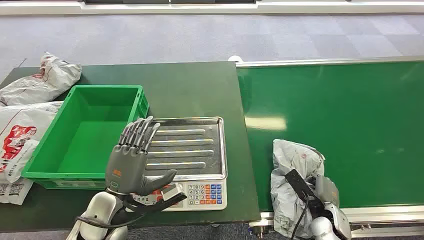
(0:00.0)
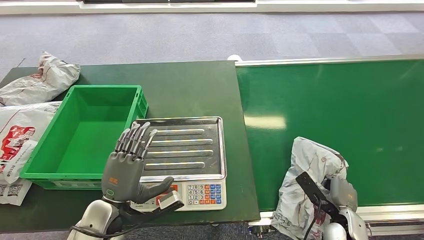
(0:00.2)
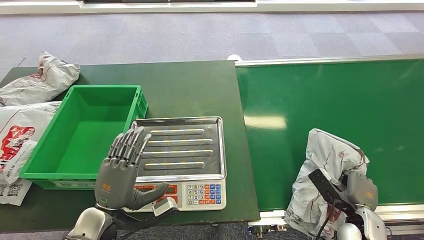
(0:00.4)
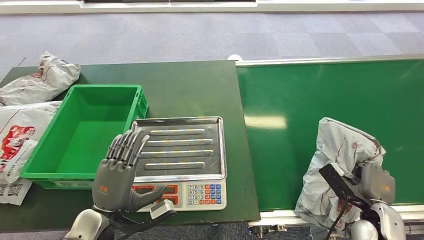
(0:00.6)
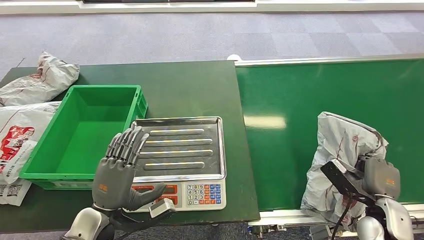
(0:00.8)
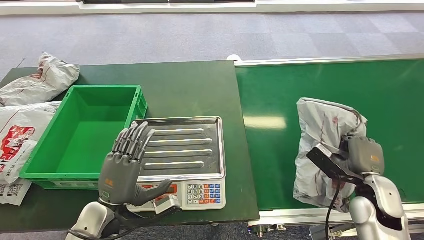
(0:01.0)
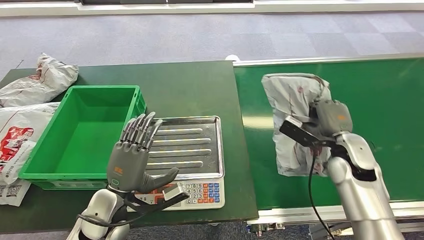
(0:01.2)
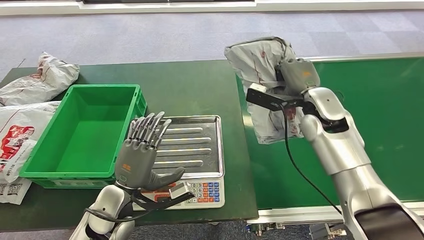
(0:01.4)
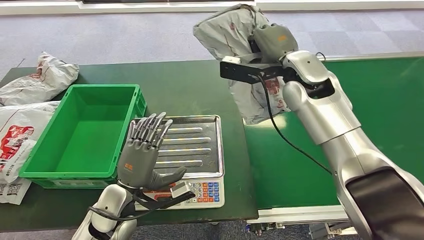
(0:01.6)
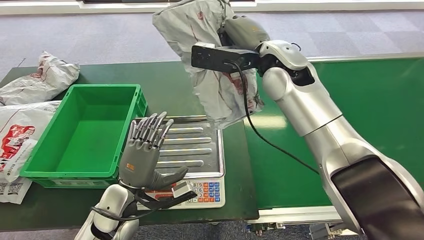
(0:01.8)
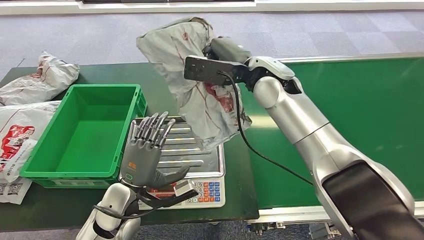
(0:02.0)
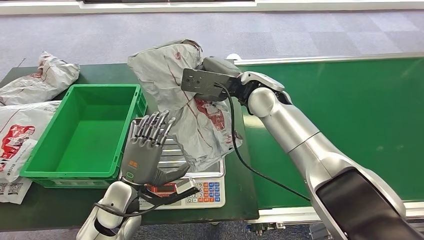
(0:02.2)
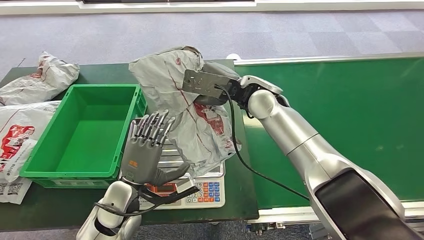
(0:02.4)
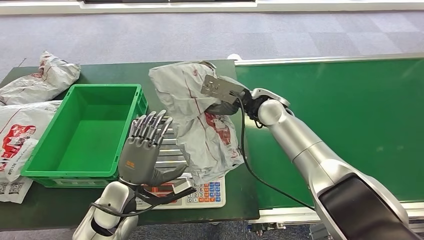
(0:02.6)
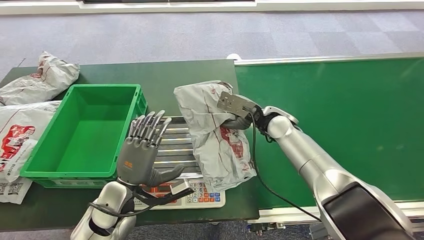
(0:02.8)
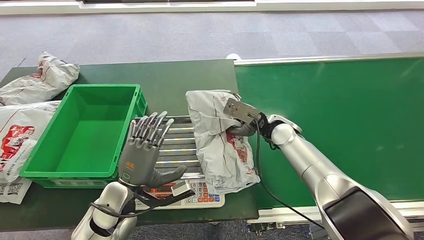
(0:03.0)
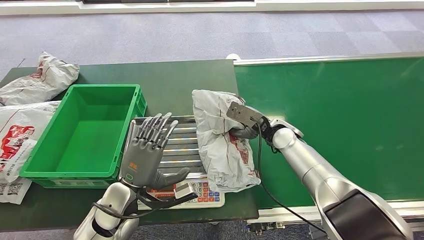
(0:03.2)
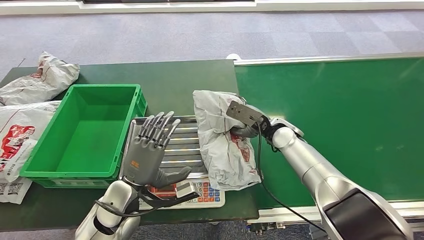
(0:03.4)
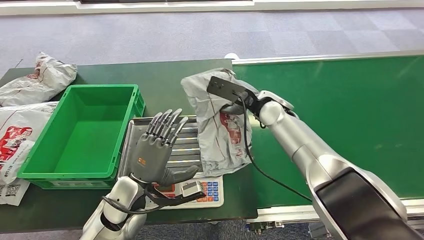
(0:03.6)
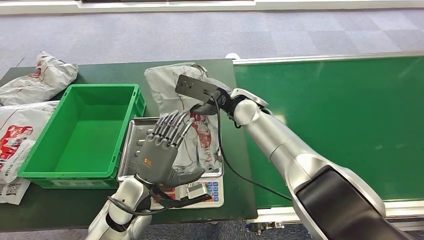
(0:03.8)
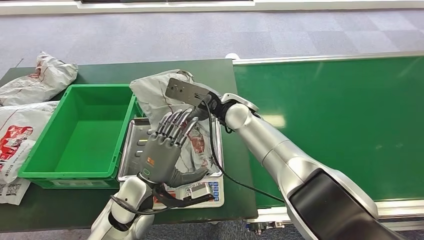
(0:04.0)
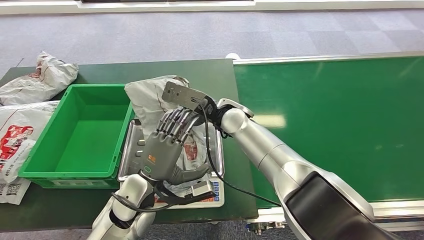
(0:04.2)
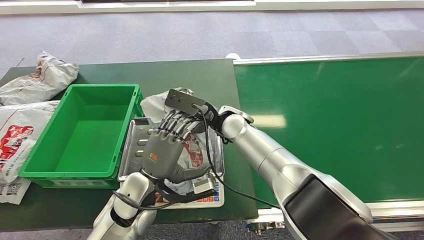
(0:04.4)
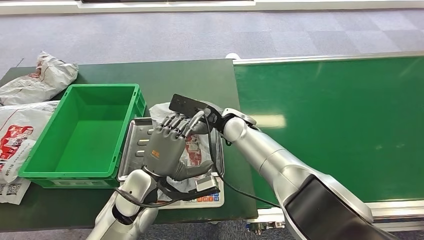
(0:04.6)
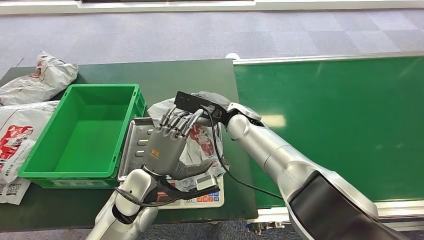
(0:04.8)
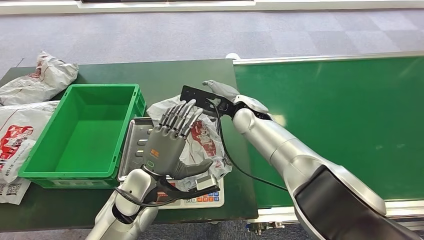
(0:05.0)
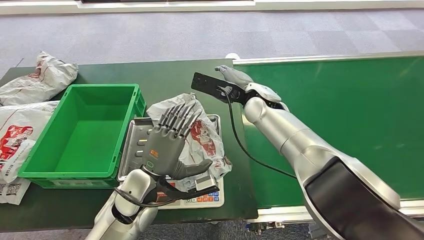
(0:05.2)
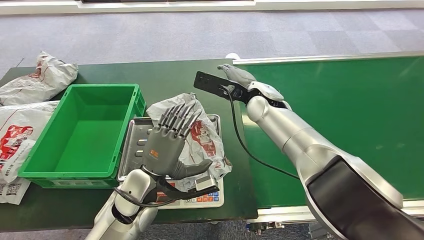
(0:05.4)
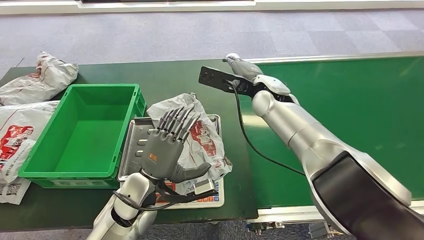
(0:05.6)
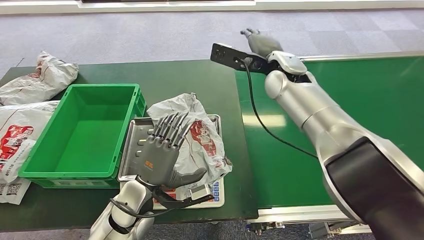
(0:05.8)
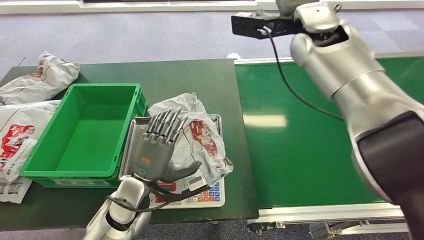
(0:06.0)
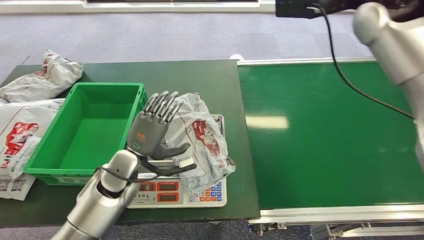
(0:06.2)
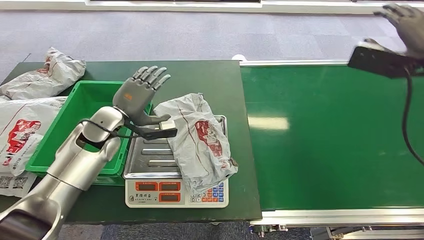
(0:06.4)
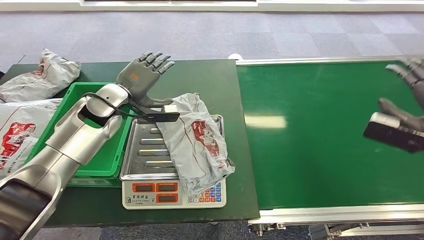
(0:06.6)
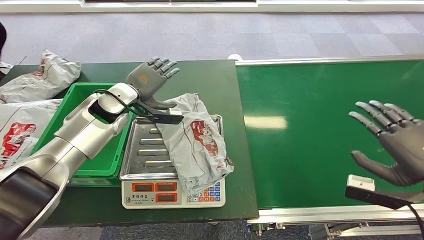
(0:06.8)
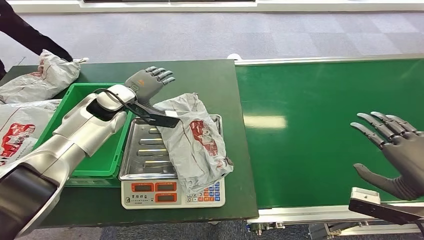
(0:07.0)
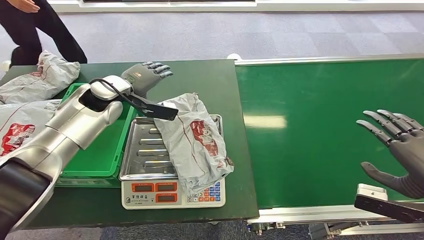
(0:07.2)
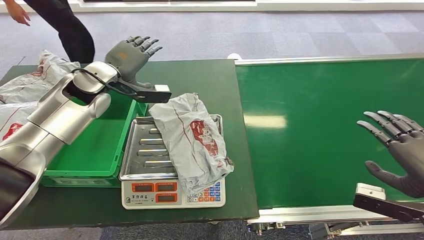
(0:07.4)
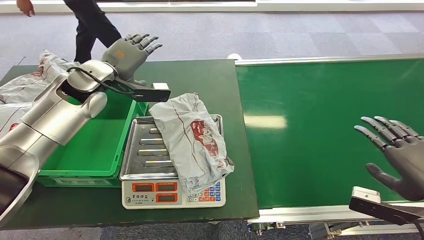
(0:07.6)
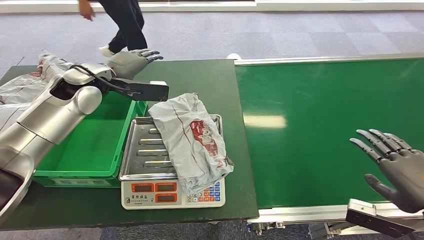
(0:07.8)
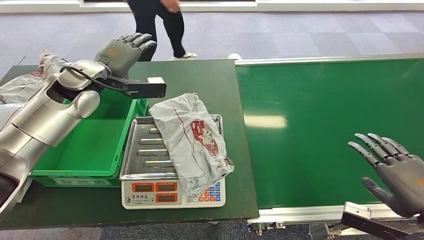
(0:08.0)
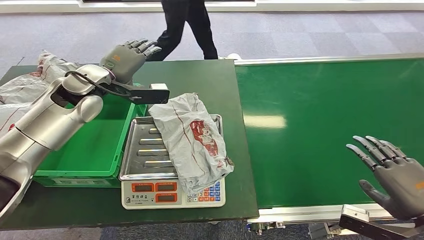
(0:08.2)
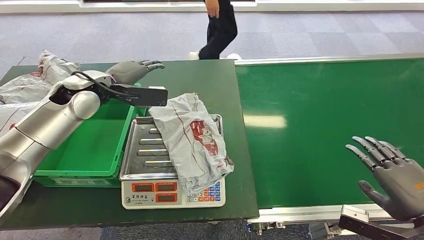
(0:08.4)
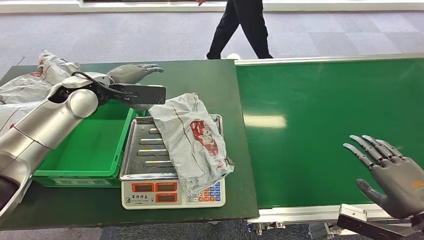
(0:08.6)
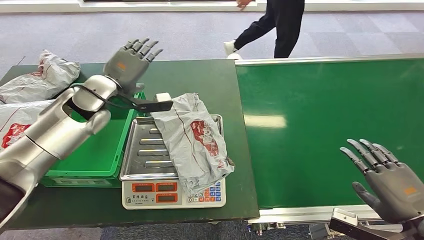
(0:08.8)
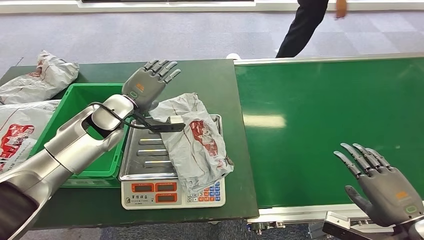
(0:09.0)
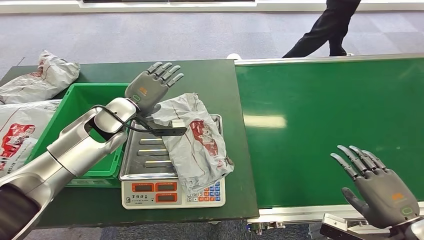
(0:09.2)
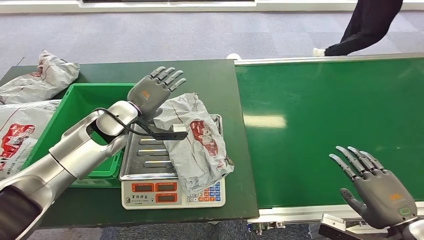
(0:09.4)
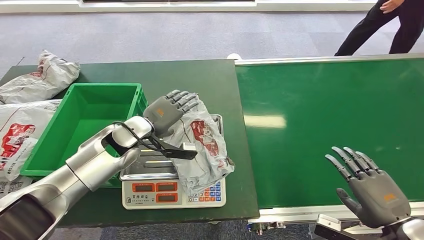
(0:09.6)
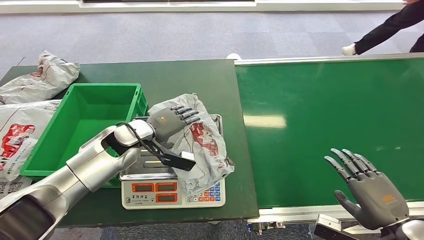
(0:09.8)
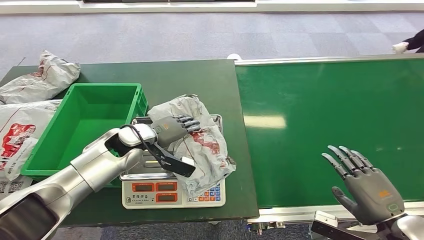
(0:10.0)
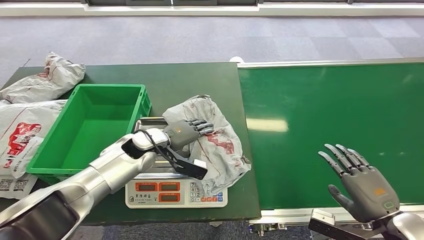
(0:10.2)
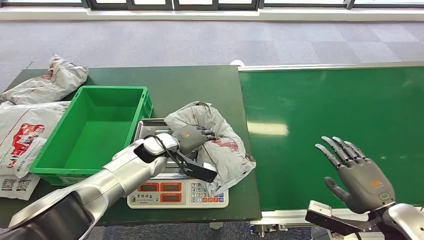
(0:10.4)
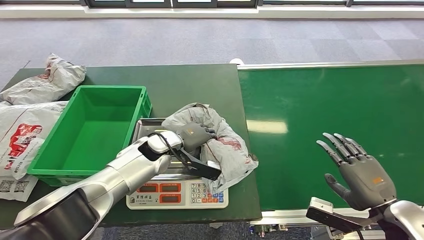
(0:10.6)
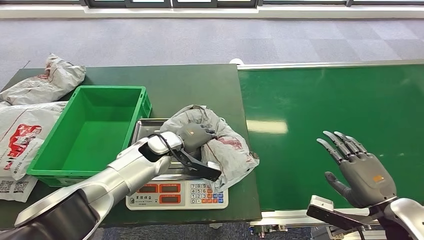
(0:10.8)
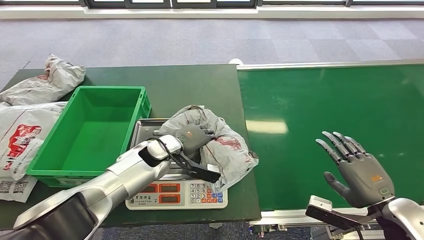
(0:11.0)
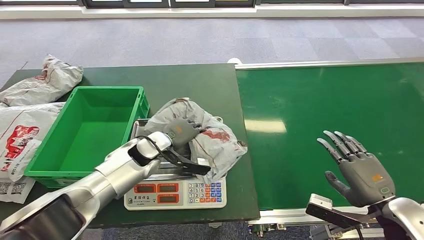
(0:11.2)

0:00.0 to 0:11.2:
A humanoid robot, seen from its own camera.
Step, 0:00.0 to 0:01.0: Pick up the package from the conveyor belt.
Step, 0:01.4 to 0:05.4: Place the package onto the inbound machine.

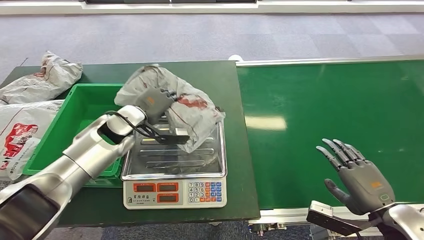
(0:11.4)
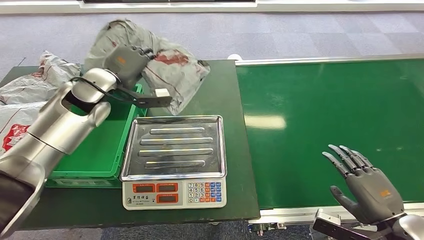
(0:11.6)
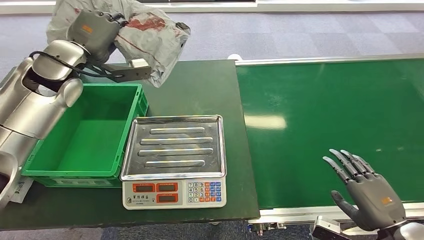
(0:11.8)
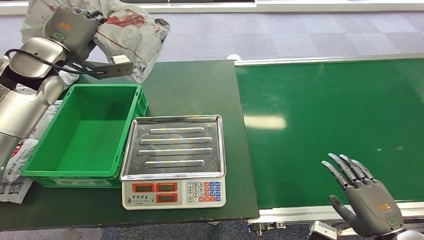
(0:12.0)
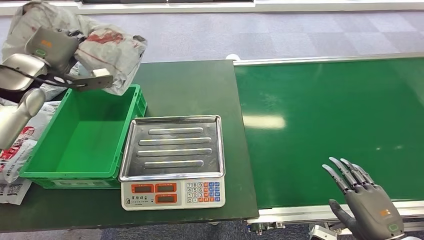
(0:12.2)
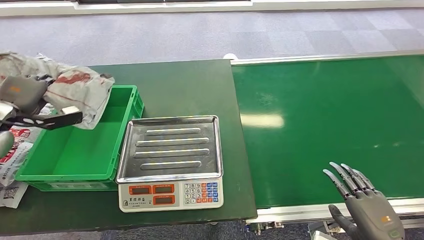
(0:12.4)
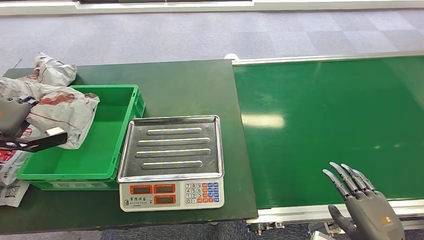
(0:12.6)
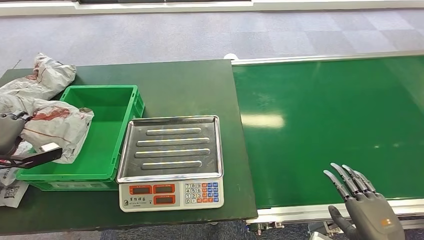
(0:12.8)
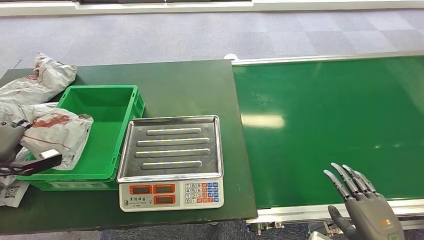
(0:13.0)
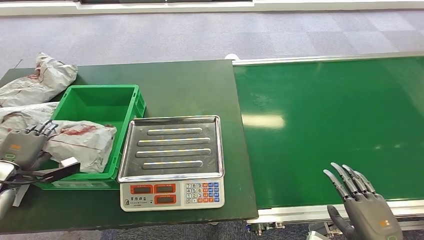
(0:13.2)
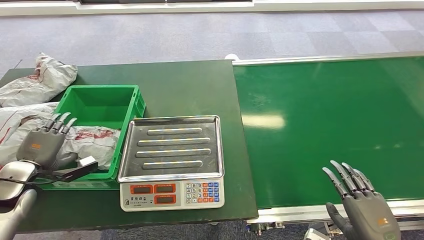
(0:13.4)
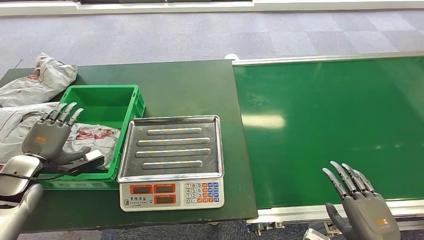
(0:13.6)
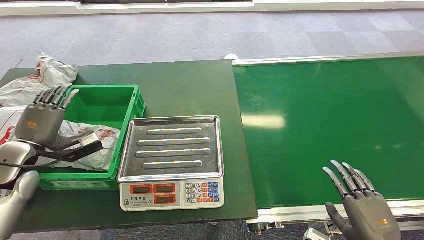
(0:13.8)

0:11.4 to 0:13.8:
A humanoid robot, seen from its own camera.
Step, 0:12.0 to 0:13.8: Place the package into the parcel locker.
0:12.6 to 0:13.8: The left hand heads to the right, covering some 10 cm.
